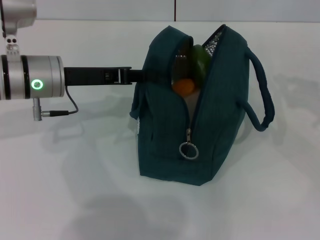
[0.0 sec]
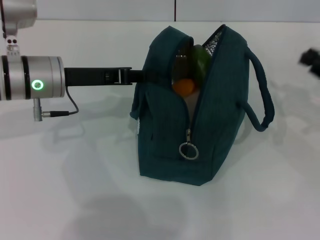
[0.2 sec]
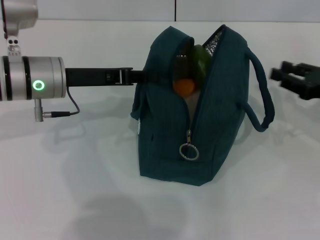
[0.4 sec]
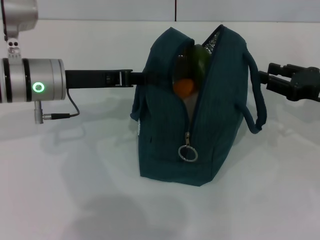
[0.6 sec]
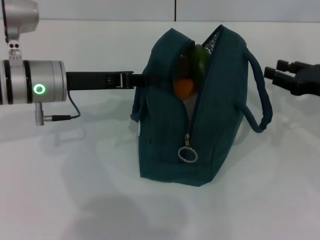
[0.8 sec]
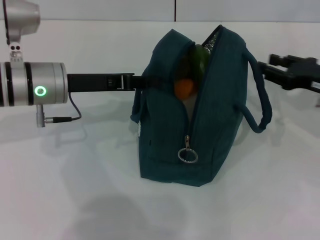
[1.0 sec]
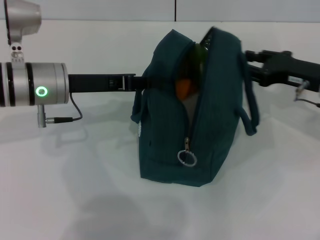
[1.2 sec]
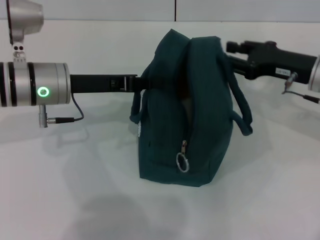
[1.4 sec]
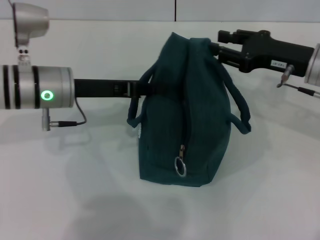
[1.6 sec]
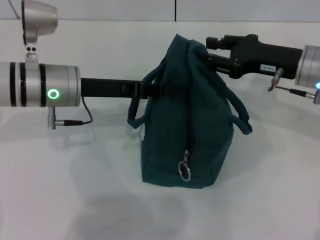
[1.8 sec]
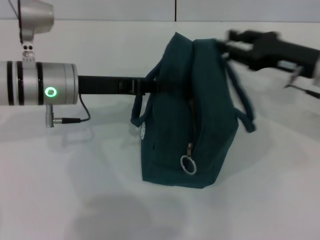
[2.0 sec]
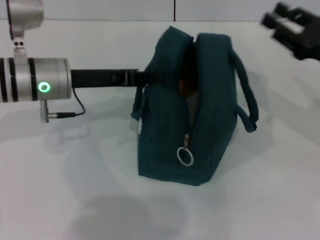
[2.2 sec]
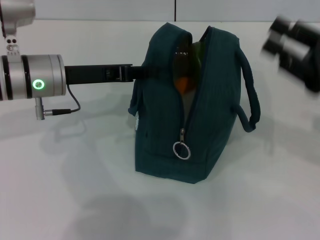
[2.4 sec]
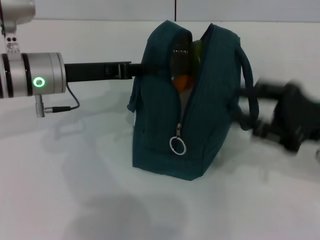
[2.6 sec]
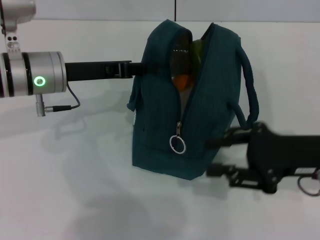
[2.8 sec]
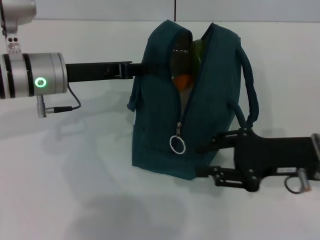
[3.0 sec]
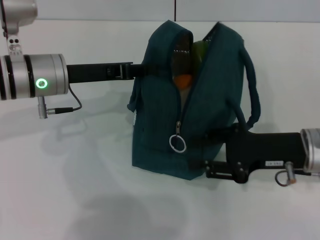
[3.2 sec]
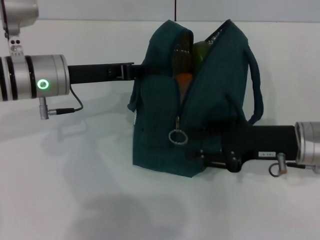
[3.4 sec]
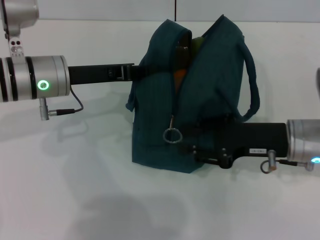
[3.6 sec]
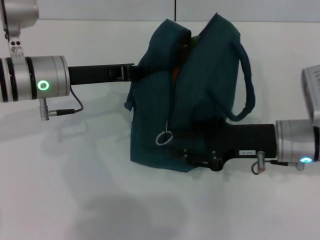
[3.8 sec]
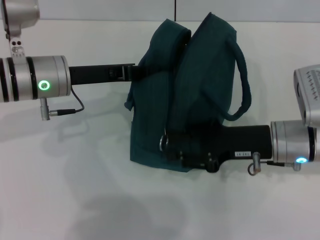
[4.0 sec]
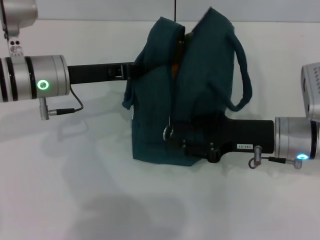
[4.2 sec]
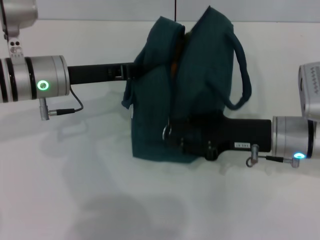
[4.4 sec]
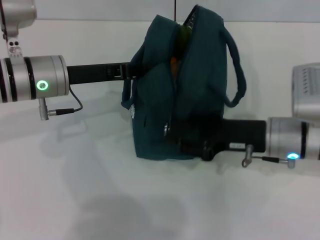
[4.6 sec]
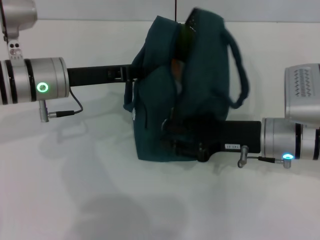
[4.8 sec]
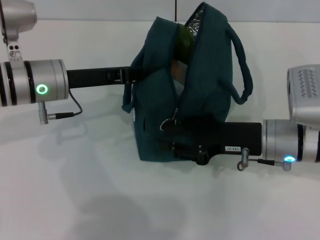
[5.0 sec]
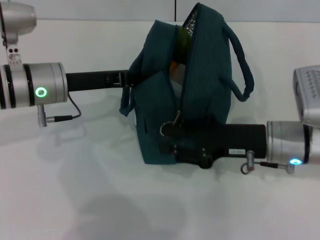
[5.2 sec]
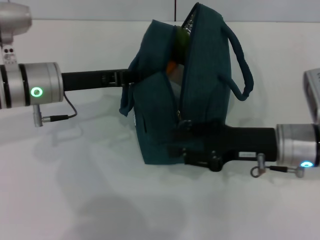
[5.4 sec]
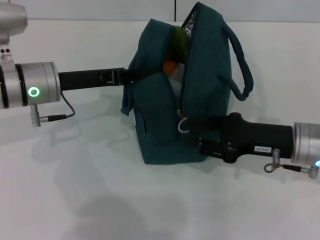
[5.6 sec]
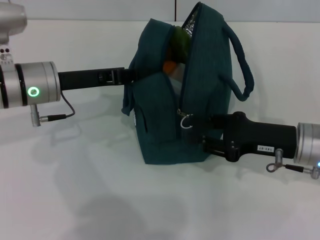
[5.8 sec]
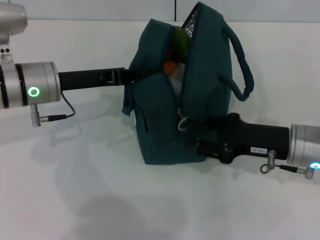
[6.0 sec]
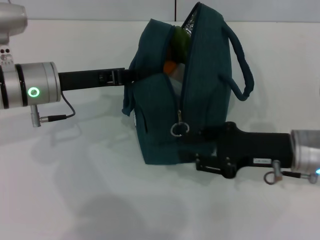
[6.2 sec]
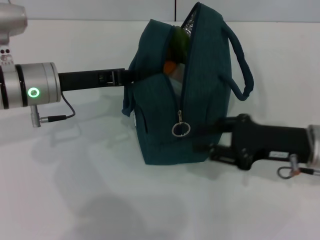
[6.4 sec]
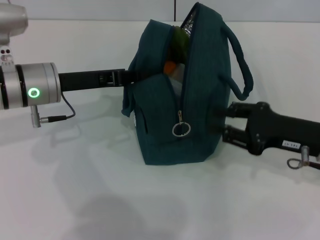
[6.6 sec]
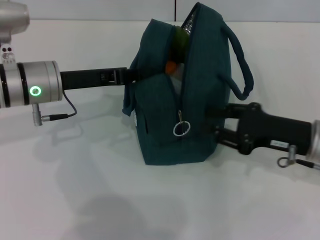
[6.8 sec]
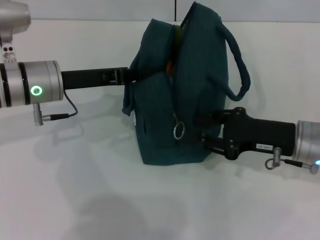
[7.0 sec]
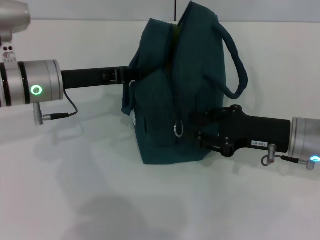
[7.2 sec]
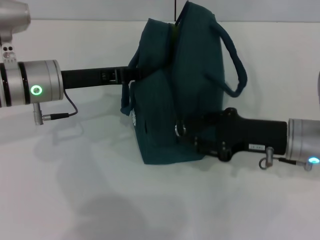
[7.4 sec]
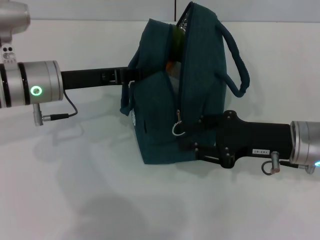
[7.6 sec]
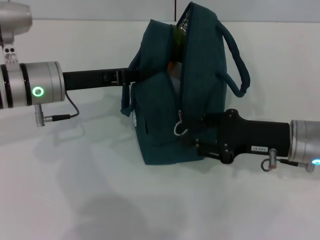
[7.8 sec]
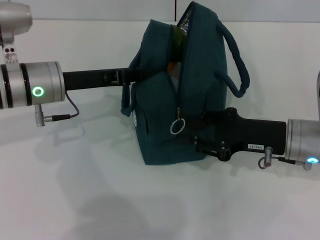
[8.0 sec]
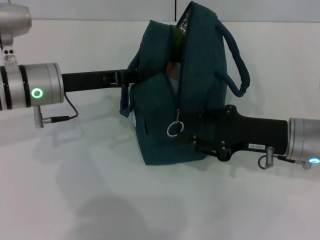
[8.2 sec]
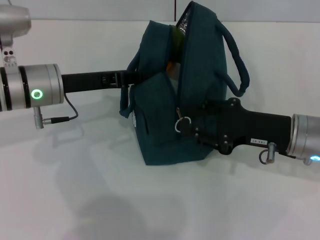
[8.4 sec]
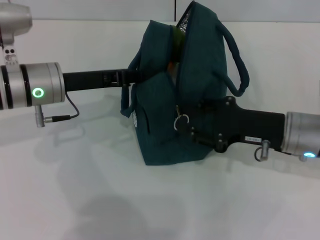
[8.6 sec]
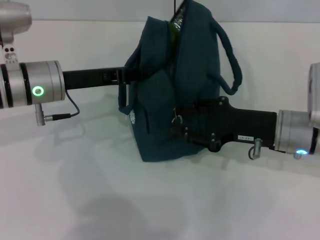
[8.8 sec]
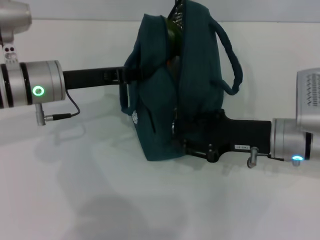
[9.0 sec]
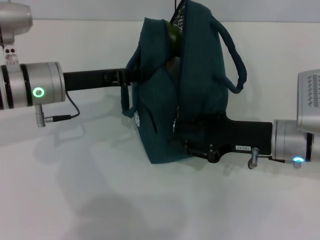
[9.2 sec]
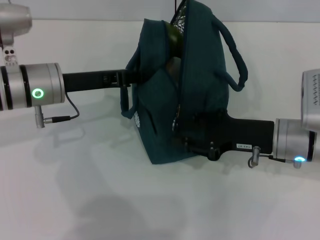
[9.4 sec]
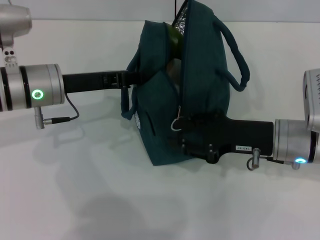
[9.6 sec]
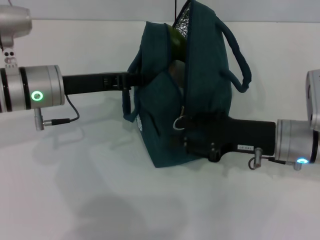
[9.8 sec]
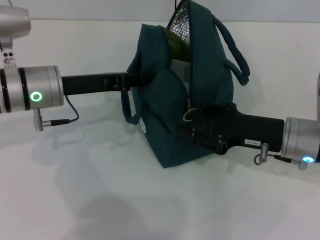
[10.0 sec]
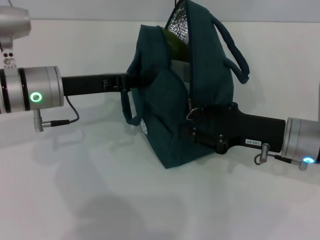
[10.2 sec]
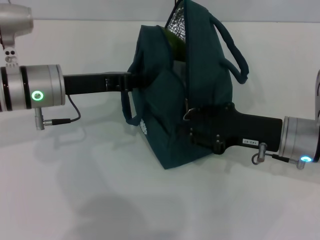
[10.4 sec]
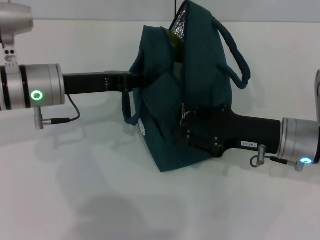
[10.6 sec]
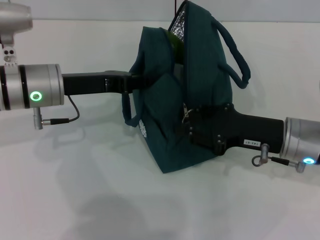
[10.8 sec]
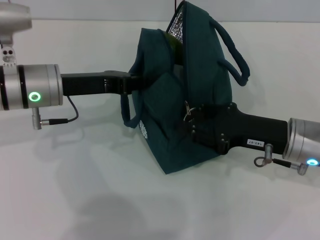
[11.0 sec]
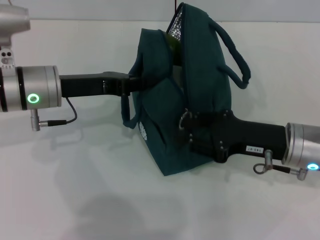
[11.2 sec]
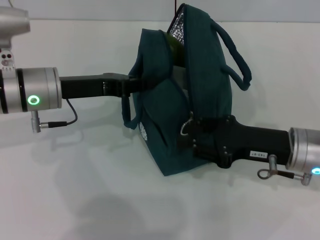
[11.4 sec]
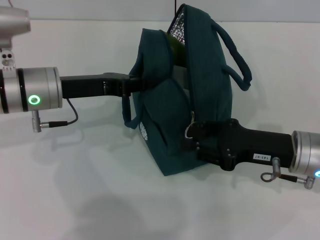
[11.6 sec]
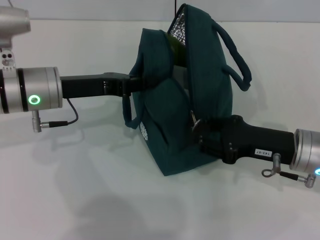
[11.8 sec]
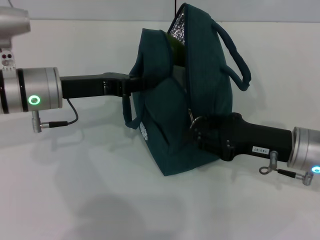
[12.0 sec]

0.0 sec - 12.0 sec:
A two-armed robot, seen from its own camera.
0.0 sec - 1.6 sec: The right gripper travels to the left and forward by some 15 cm, and opens its fingers.
1.6 sec - 3.0 sec: The right gripper heads backward, covering approximately 10 cm.
3.0 sec - 4.4 sec: The right gripper shifts by approximately 5 cm.
4.4 sec - 6.0 sec: The grippers make only small movements.
6.0 sec - 12.0 sec: The grippers make only small movements.

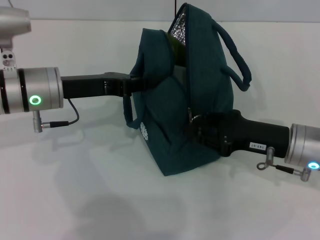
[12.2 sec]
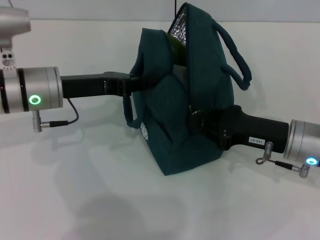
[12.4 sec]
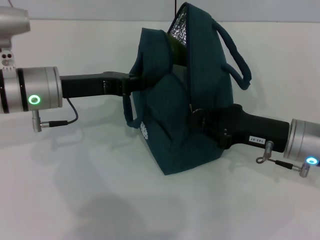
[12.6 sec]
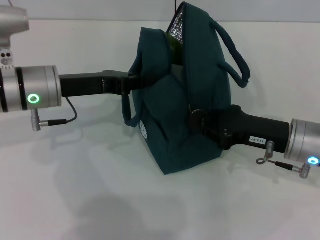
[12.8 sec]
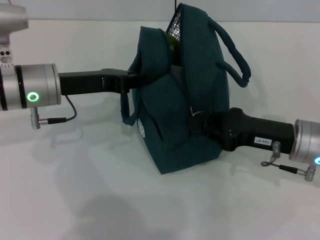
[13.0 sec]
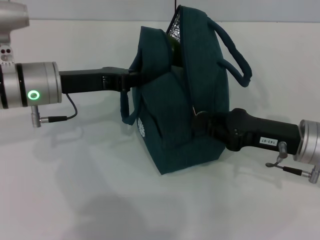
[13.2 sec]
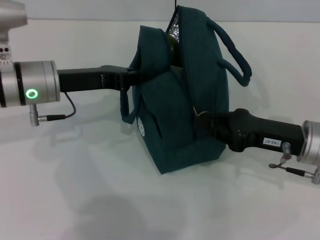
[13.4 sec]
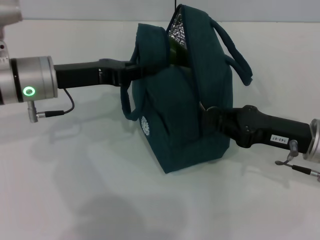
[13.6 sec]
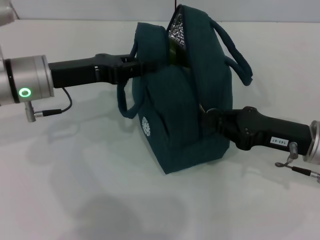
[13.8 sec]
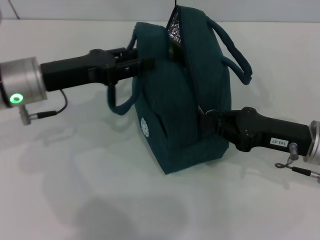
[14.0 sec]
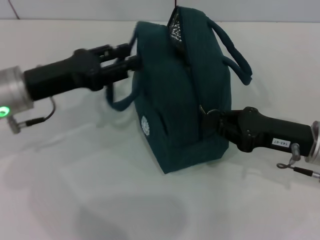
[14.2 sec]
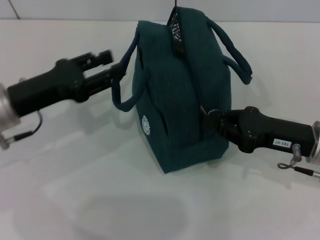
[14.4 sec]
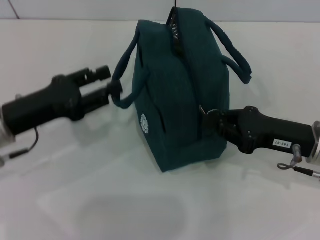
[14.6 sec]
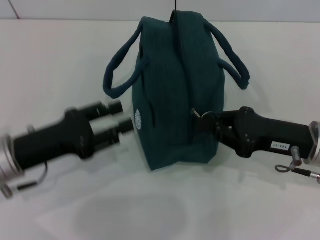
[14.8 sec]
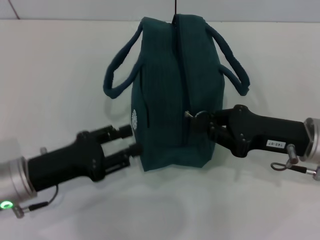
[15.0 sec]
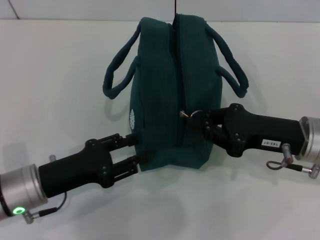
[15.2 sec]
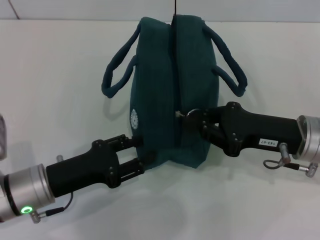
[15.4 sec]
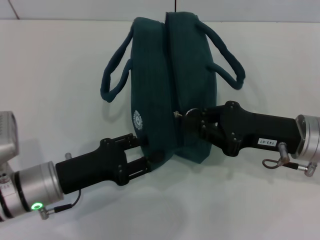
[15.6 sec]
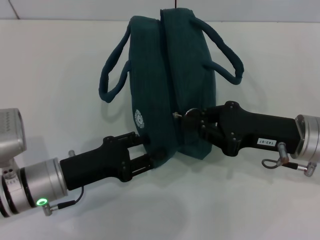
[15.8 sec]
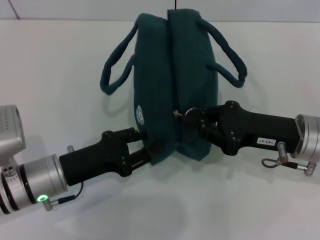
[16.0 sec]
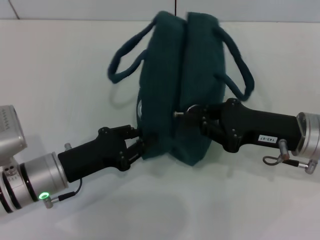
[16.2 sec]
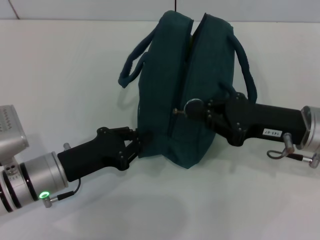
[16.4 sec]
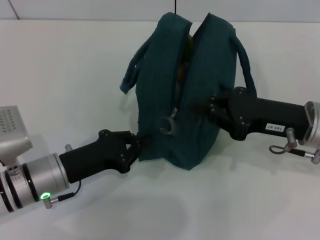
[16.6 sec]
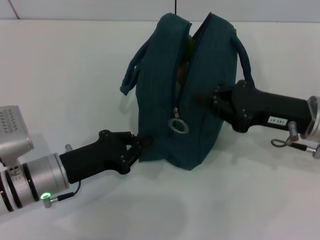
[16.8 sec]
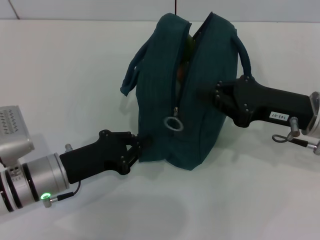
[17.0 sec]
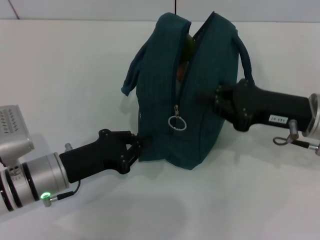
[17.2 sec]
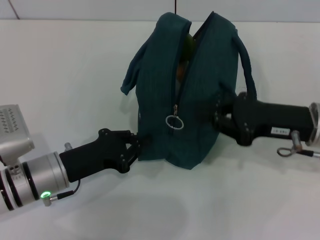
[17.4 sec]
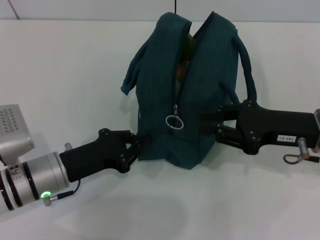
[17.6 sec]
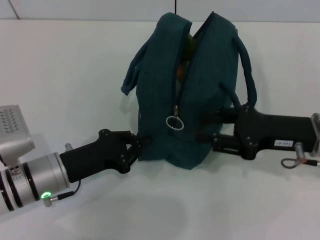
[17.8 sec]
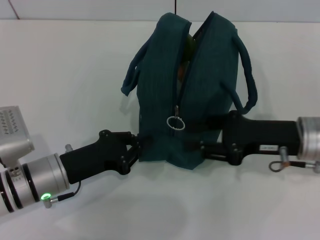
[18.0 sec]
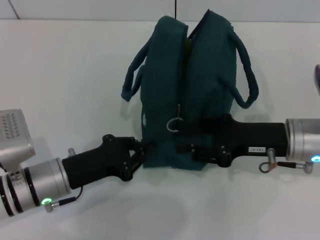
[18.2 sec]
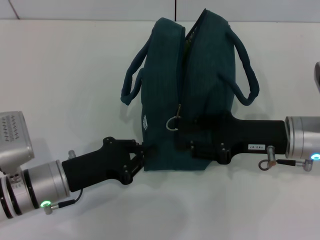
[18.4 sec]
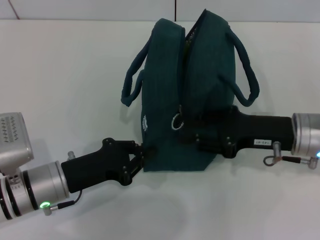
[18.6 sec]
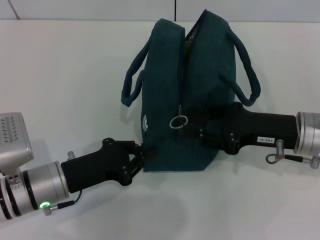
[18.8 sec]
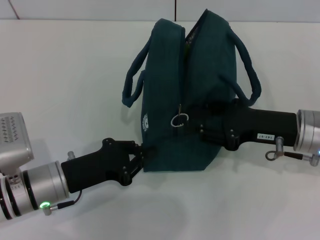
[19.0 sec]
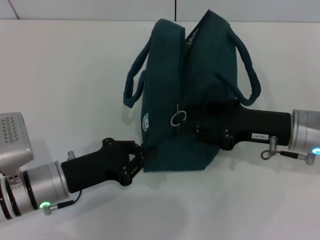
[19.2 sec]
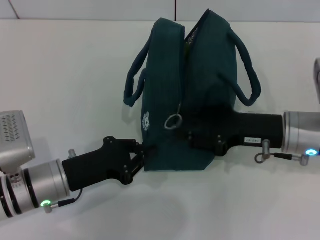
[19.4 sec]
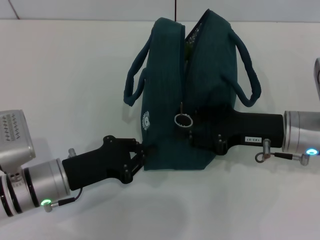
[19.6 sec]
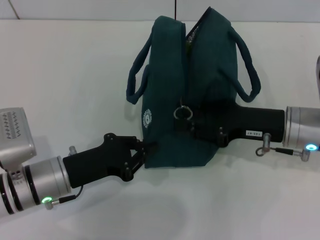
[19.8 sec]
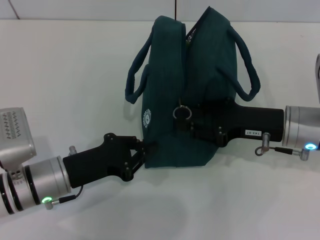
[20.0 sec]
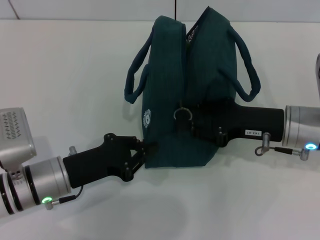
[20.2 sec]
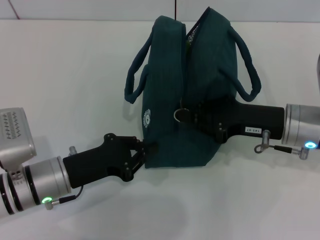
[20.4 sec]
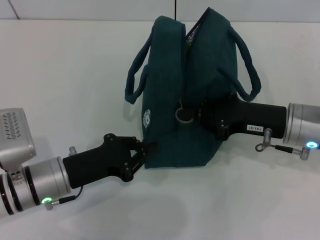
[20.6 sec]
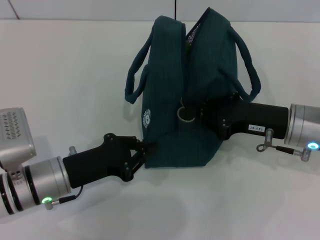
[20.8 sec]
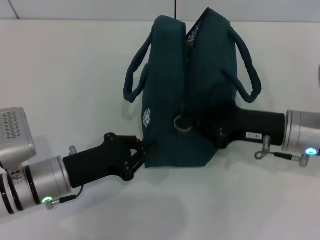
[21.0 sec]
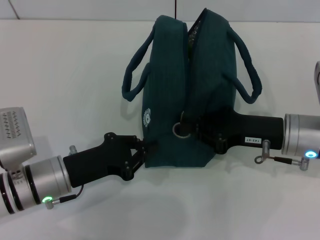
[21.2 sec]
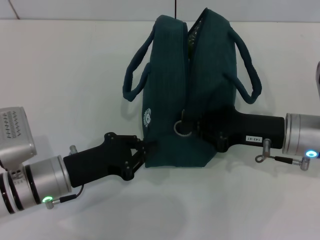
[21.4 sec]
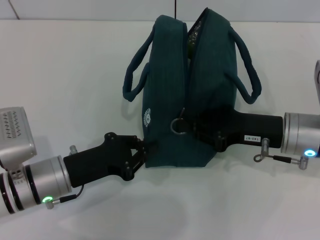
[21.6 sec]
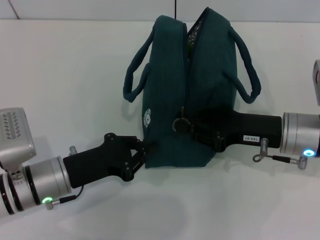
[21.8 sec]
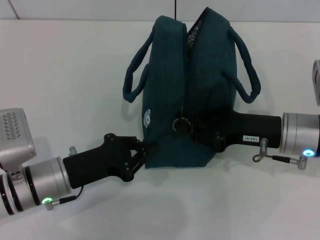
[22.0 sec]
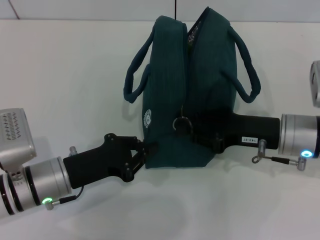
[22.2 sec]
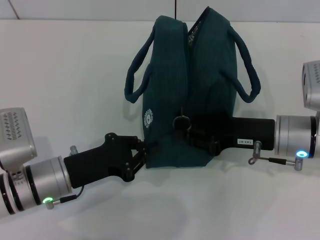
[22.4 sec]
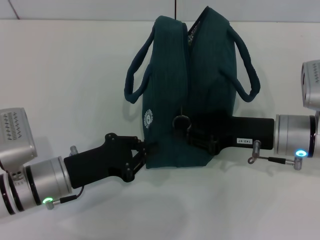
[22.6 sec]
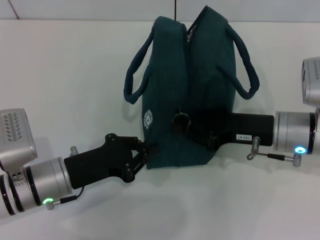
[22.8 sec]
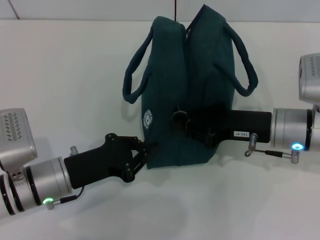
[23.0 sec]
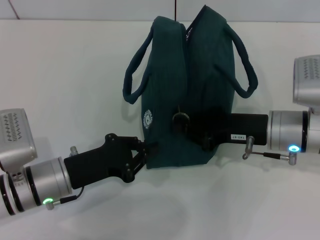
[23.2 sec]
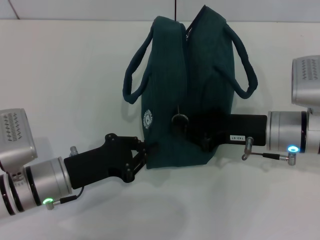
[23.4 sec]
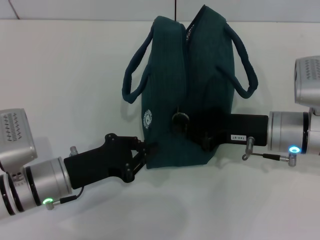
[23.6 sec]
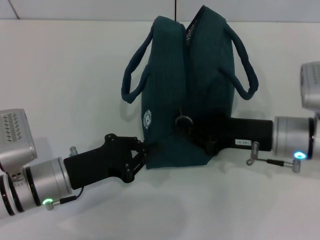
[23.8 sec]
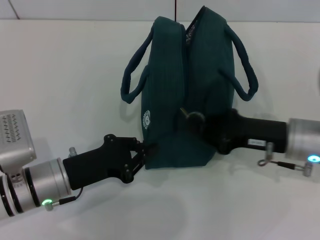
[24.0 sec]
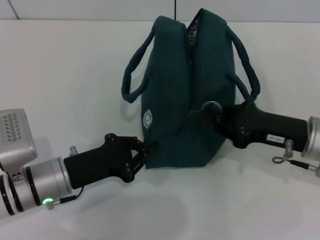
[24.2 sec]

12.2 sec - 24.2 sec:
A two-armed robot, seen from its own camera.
12.2 sec - 13.8 sec: The grippers stay close to where they were, moving slightly.
13.8 sec - 15.2 sec: The left gripper shifts approximately 15 cm backward and downward, and opens up.
15.2 sec - 16.6 sec: The left gripper closes up.
16.6 sec - 18.2 sec: The right gripper opens its fingers.
18.2 sec - 19.8 sec: The grippers stay close to where they were, moving slightly.
19.8 sec - 21.2 sec: The right gripper closes.
21.2 sec - 22.6 sec: Both grippers stay put.
22.6 sec - 24.2 sec: The grippers stay close to where they were, moving slightly.
